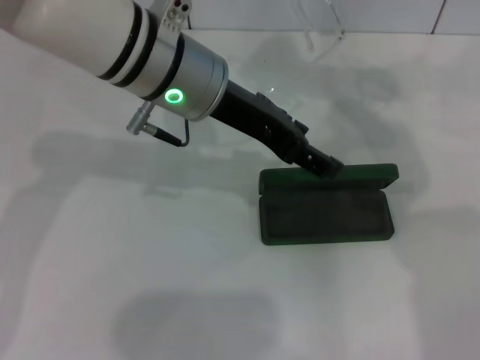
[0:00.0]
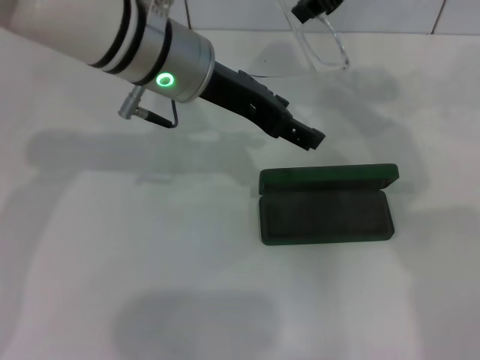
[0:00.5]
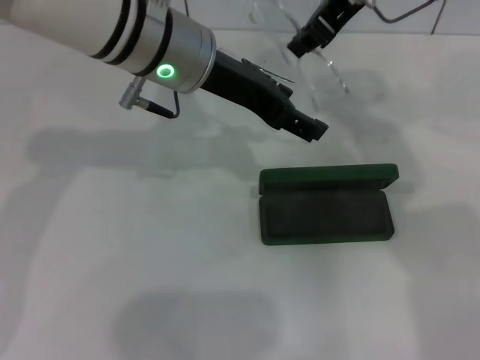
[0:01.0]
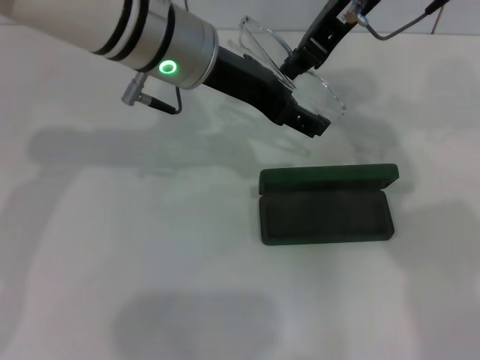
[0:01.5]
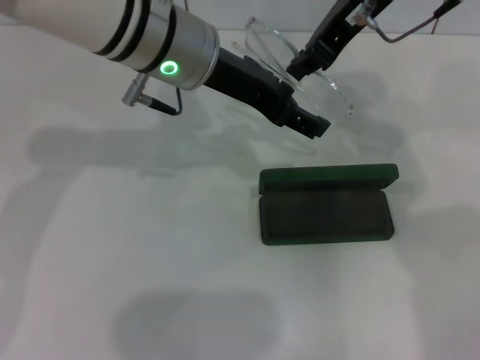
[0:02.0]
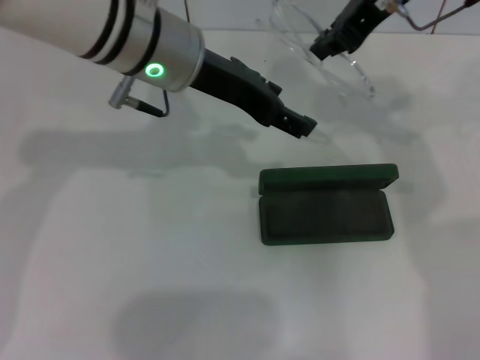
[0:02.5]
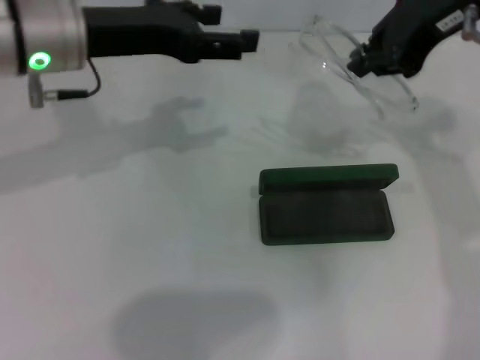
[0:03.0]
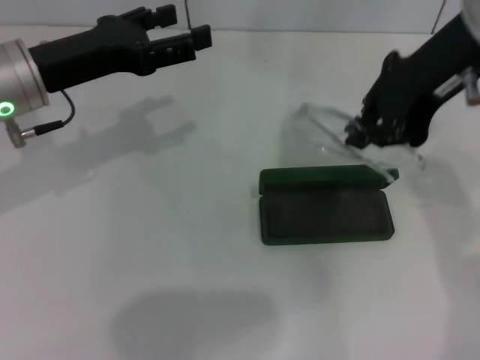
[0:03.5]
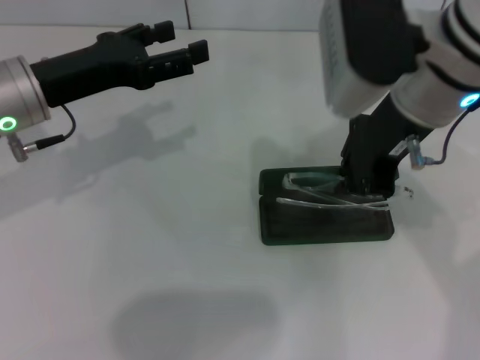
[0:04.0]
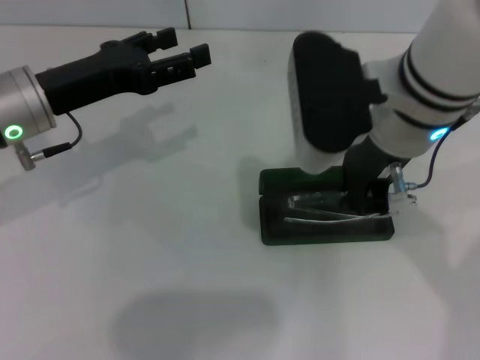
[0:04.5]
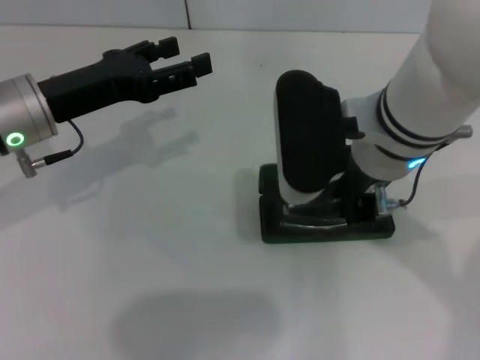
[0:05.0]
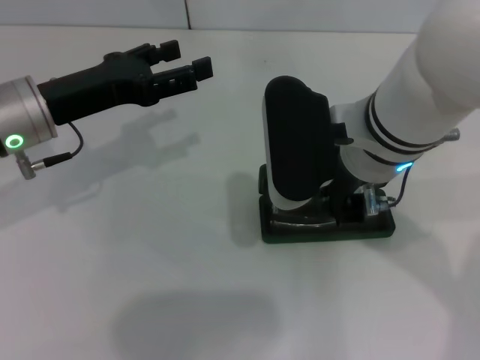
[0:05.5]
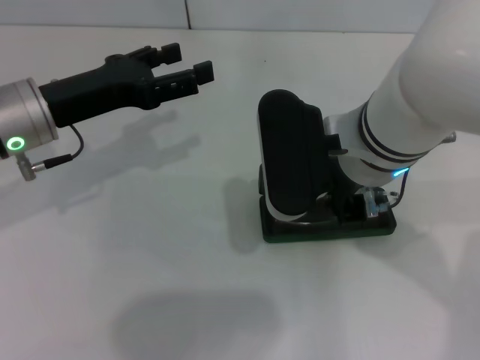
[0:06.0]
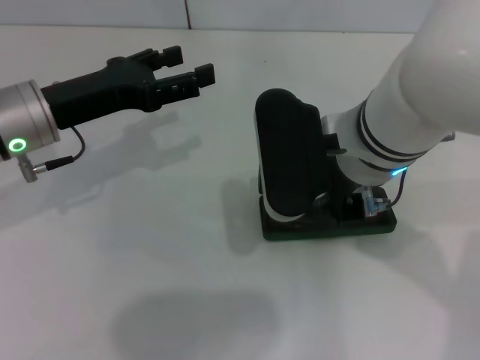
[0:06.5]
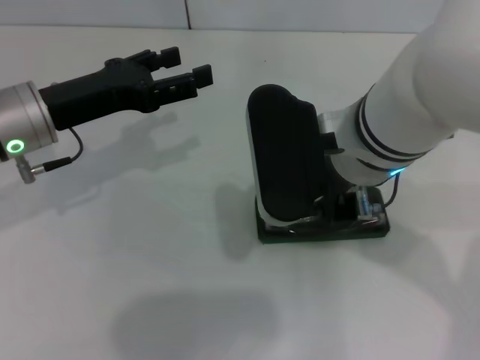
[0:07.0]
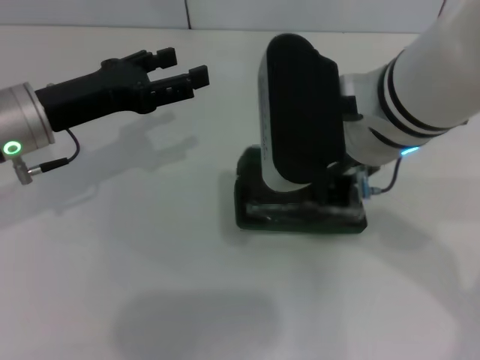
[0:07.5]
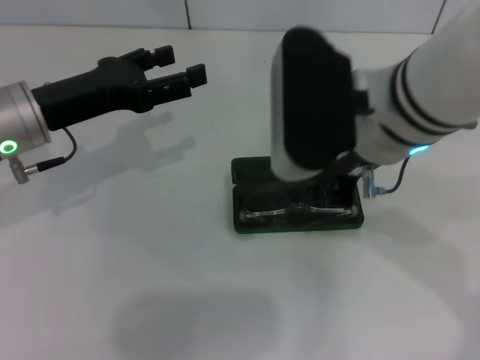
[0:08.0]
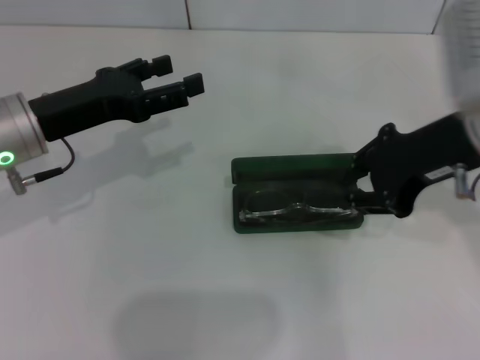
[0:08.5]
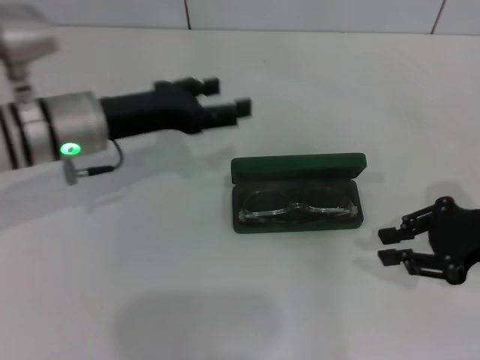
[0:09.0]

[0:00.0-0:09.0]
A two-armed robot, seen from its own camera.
Step, 0:00.0 to 0:02.0: Fold the frame with your left hand.
Step, 0:02.5 to 0:07.5: Put the glasses into the case with your right hand.
0:00.0 to 0:02.0: The grippers move only a little.
0:02.0 to 0:04.5: The right gripper shifts approximately 10 cm backward and downward, while the left gripper moves to the left and downward, roughly 15 cm.
0:07.0 to 0:09.0: The right gripper shifts roughly 25 cm to the right.

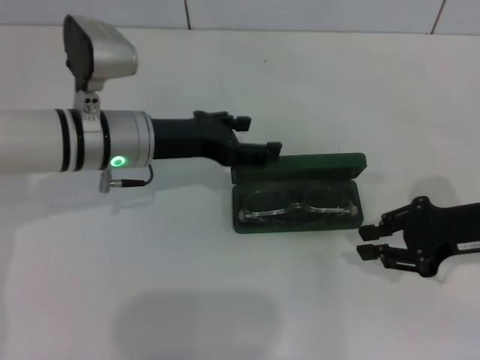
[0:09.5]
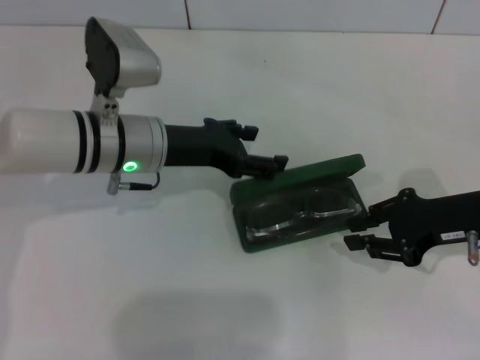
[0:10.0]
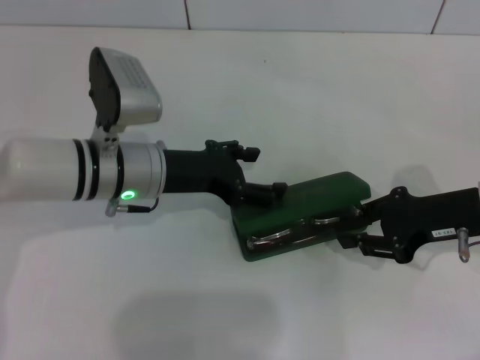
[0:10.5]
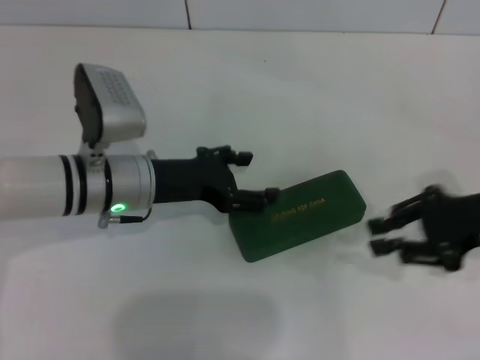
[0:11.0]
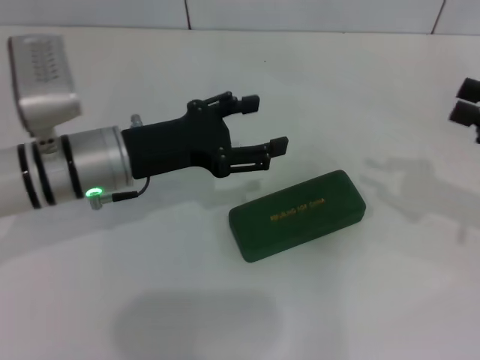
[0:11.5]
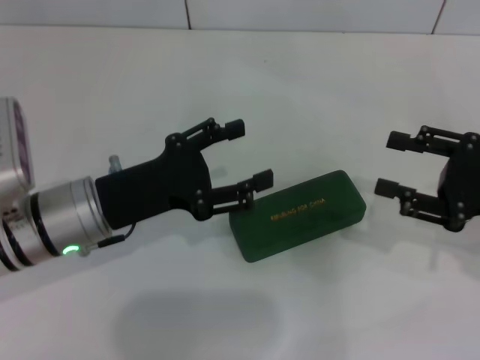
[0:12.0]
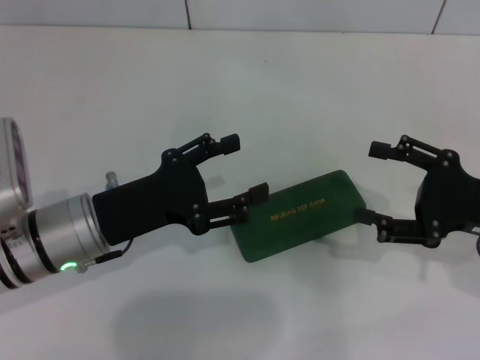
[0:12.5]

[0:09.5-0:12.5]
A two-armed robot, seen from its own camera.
0:09.5 to 0:11.0: There are only small adjustments of the grippers.
0:11.0 to 0:12.5: The right gripper opens. The left gripper travels backward by roughly 5 cm.
